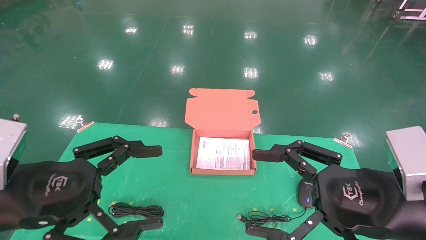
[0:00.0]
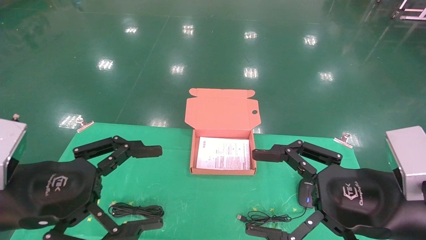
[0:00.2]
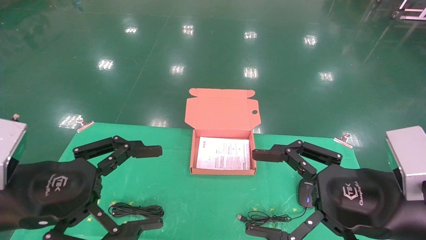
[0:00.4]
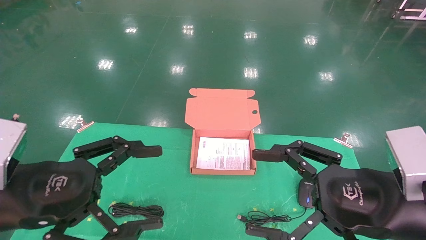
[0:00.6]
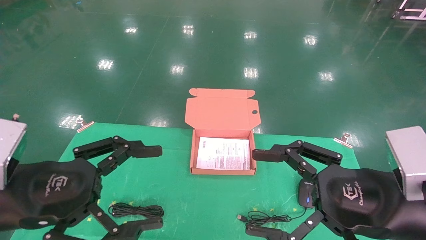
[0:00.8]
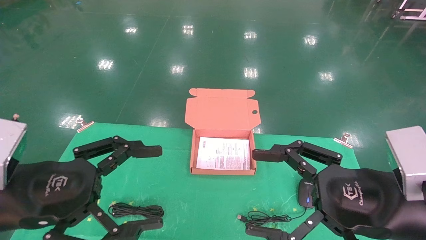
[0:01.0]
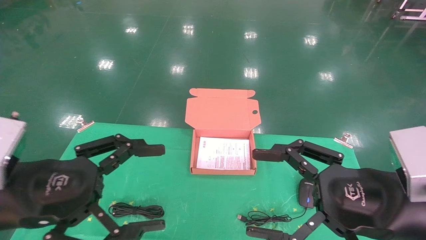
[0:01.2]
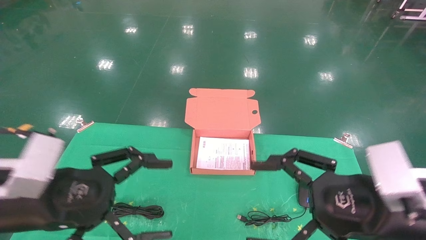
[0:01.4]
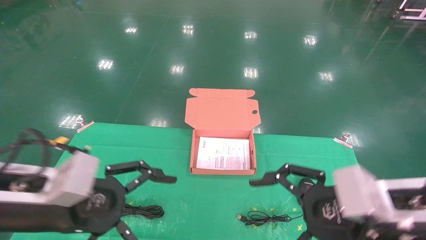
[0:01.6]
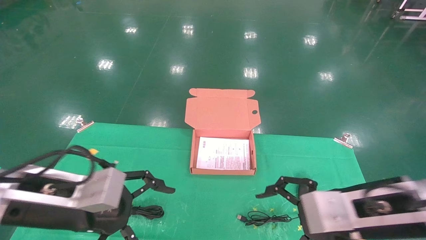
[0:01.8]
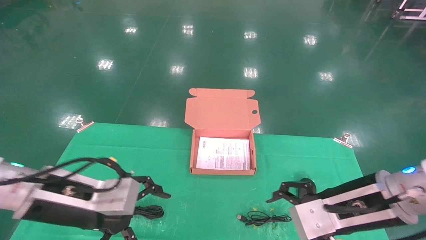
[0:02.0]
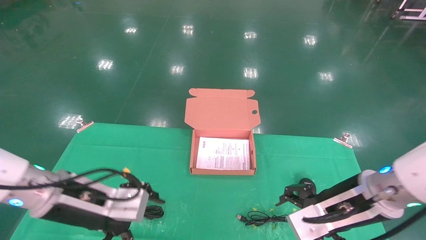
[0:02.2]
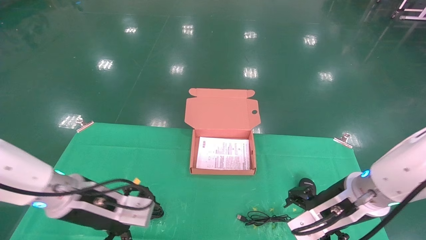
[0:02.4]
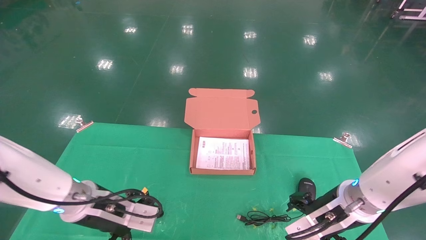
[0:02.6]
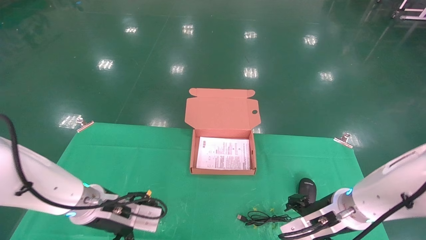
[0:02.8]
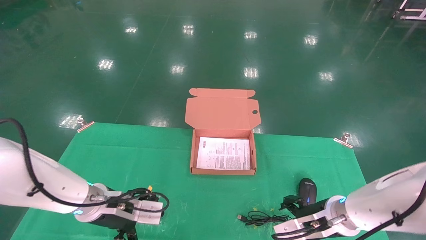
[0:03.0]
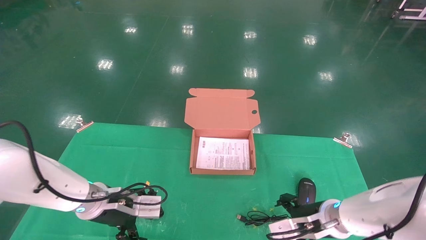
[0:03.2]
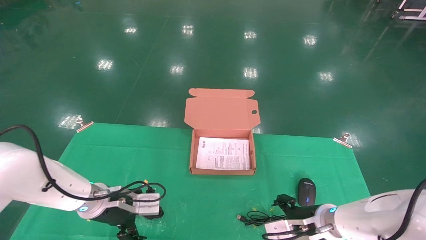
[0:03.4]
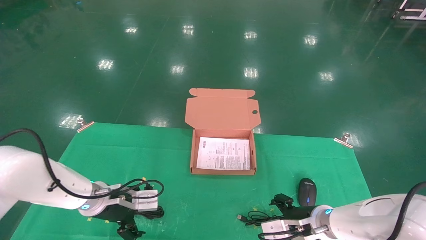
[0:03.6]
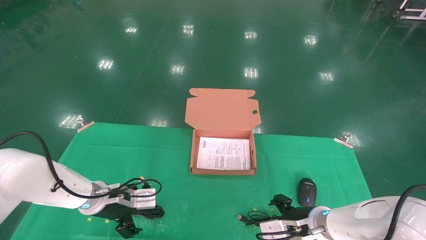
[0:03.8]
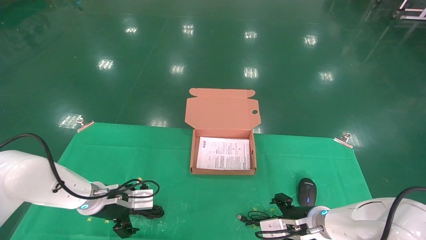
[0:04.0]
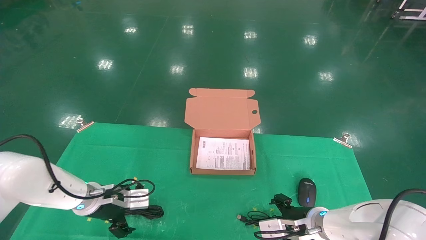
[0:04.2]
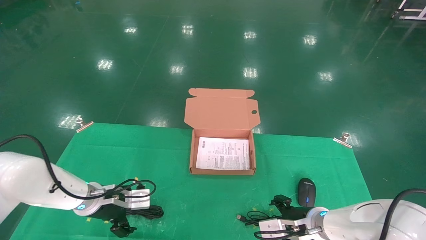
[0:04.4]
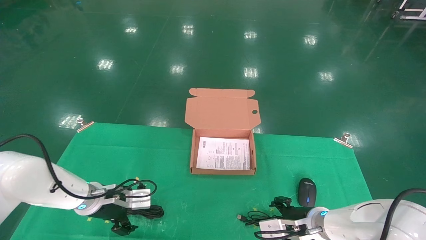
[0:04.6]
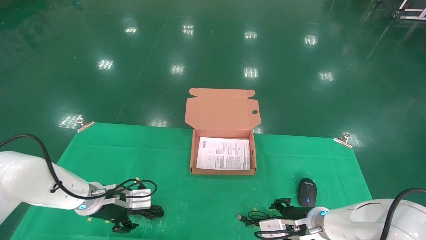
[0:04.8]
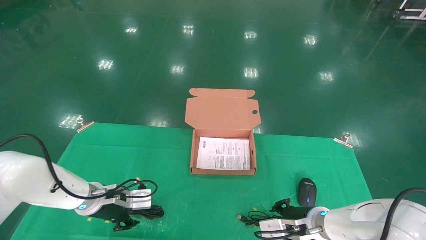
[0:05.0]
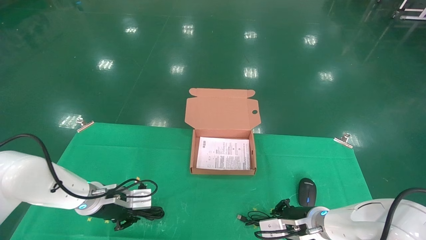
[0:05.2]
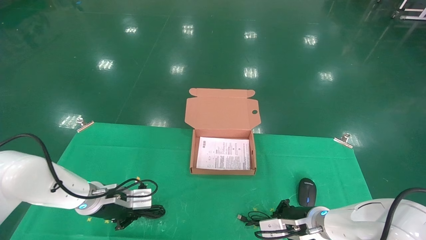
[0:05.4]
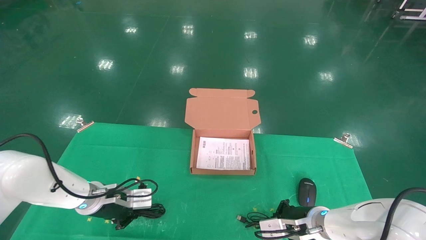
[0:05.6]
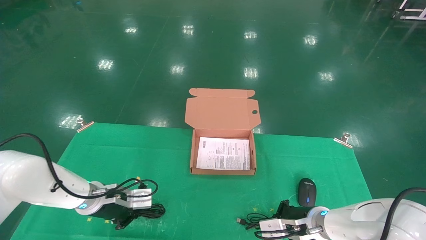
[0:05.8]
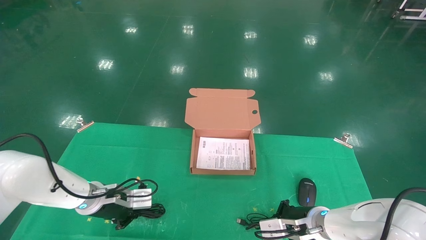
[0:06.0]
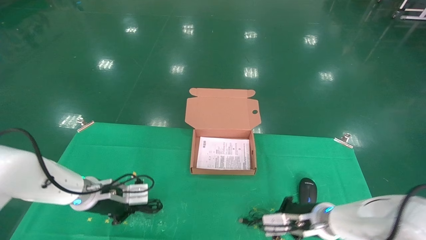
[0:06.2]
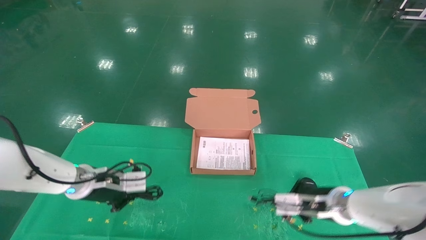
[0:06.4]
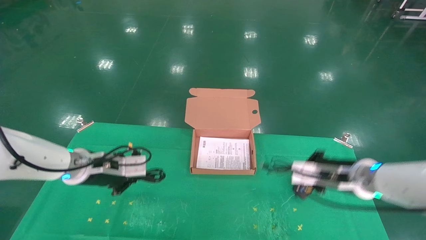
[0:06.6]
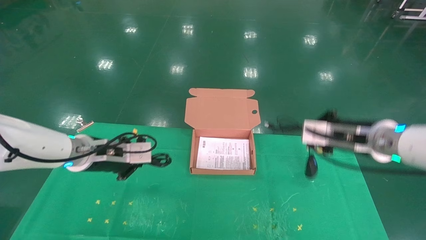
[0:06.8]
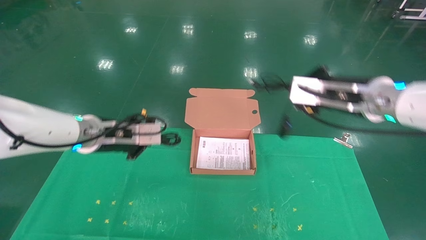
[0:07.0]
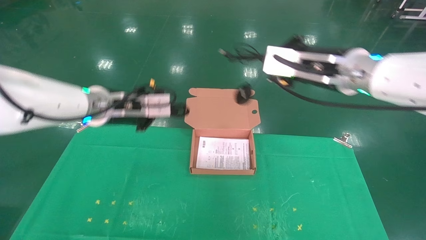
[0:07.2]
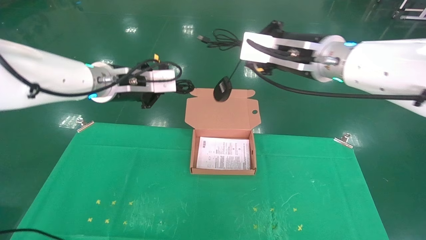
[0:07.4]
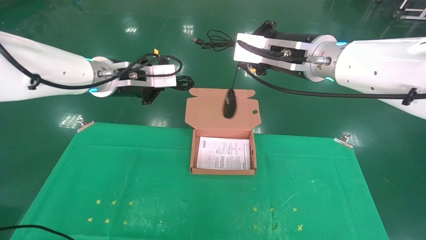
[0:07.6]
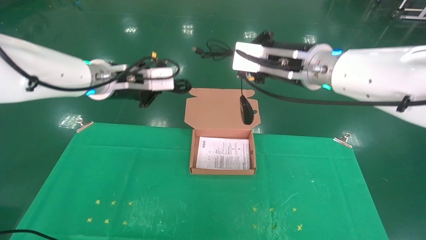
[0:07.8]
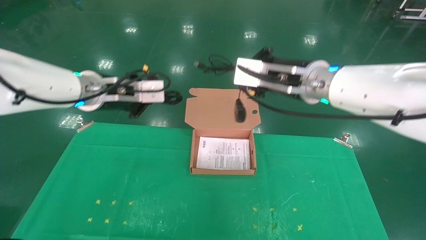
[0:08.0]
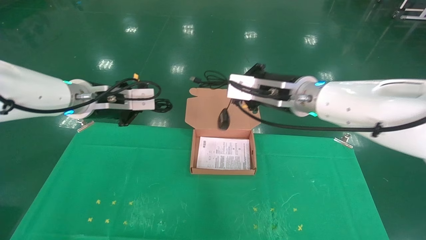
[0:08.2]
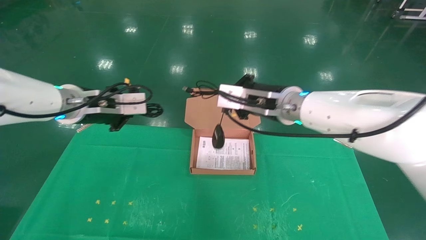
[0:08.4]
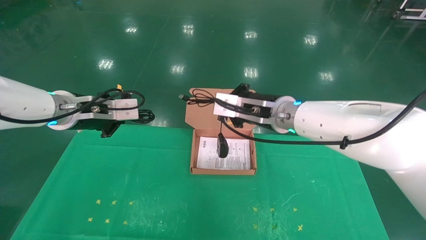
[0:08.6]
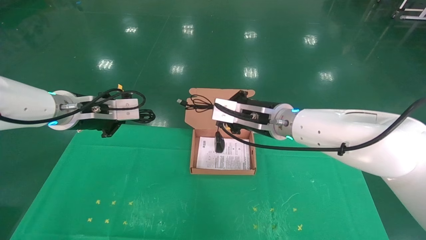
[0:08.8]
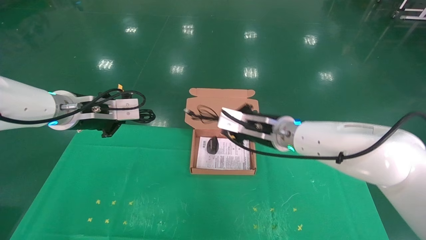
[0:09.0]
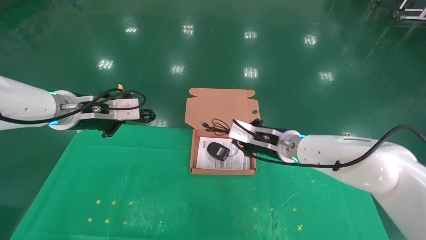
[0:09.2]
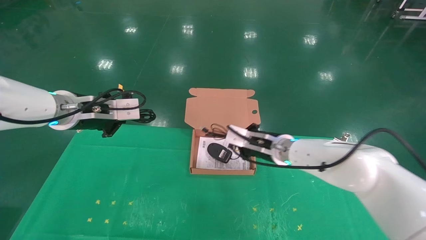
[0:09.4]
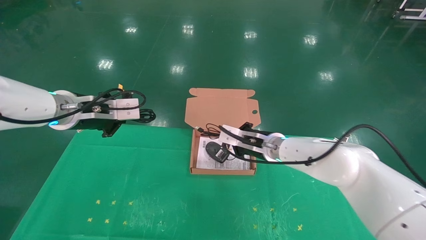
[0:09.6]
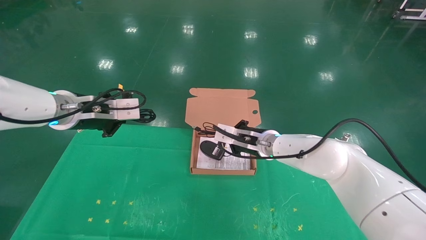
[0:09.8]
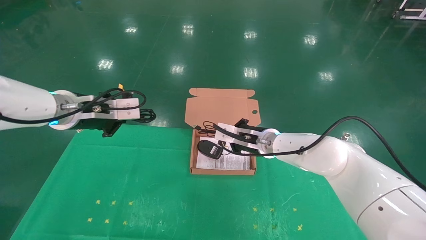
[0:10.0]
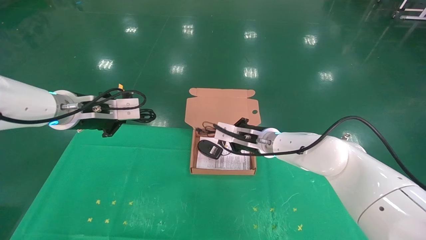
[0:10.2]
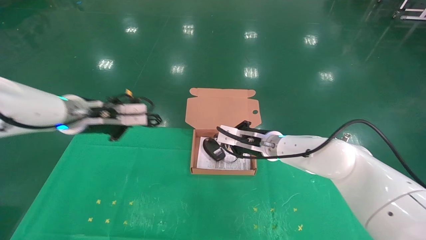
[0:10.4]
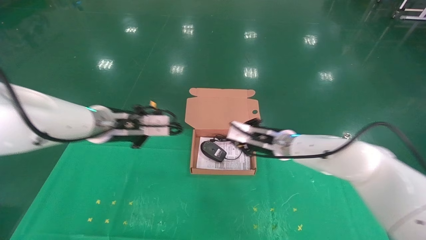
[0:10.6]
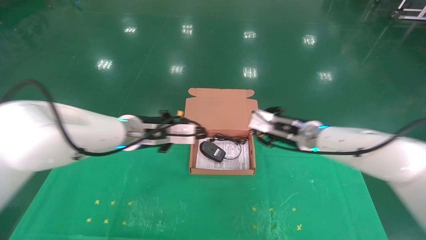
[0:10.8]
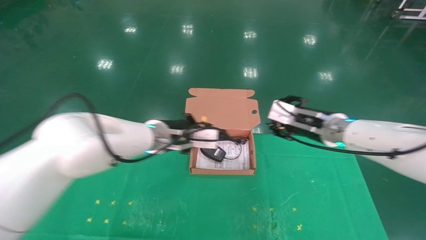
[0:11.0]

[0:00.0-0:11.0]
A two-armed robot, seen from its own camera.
Task of the whole recording: grasp data cable left put into box grasp mouse right put into box.
Step, 0:01.0 to 0:05.8: Grab and pick up both the mouse and power cord from the accessory packaging area at the same time.
0:01.6 to 0:03.2: The left gripper goes some 20 cm forward and downward. Meanwhile the right gripper heads downward and forward, covering roughly 20 cm.
0:03.2 to 0:04.8: The left gripper shifts by about 5 cm.
0:04.8 to 0:06.2: The left gripper closes up. Meanwhile the right gripper closes.
0:06.2 to 0:07.8: Both grippers travel together upward, some 25 cm.
0:07.8 to 0:09.4: The right gripper moves downward and forward, roughly 20 cm. Meanwhile the left gripper shifts some 5 cm to the left.
0:09.4 to 0:11.0: The right gripper heads to the right and upward, covering some 10 cm, and opens. Meanwhile the left gripper is displaced to the right and downward by some 20 cm.

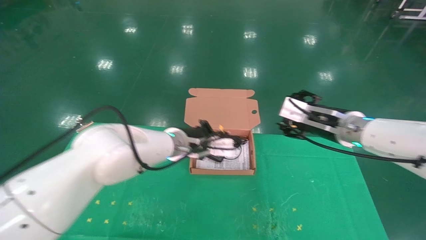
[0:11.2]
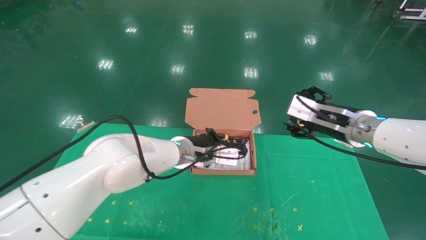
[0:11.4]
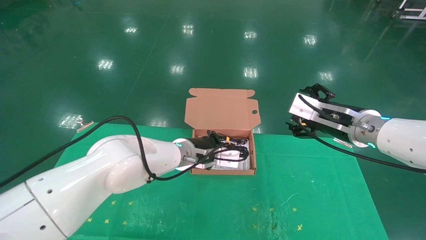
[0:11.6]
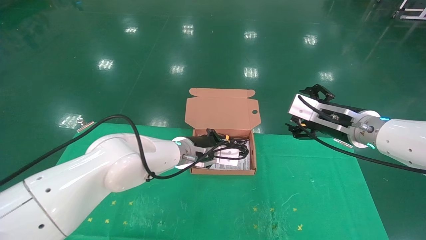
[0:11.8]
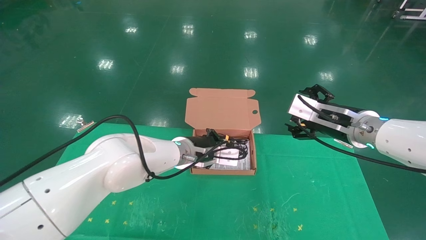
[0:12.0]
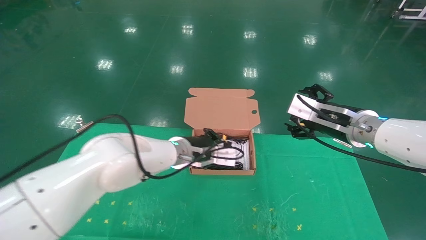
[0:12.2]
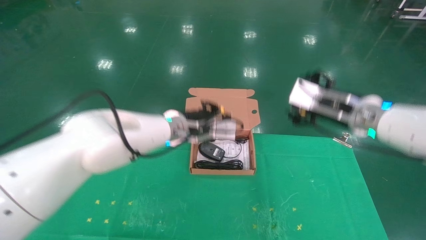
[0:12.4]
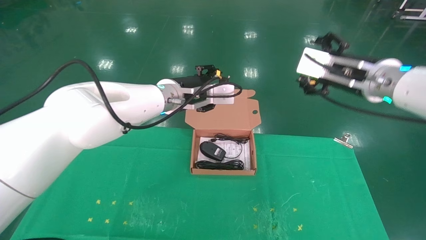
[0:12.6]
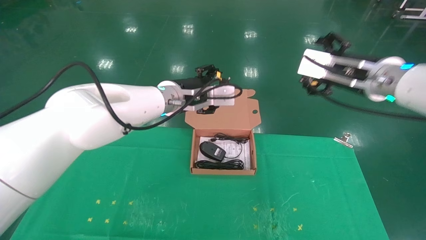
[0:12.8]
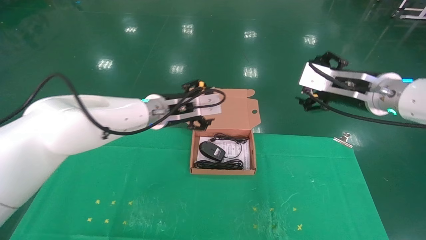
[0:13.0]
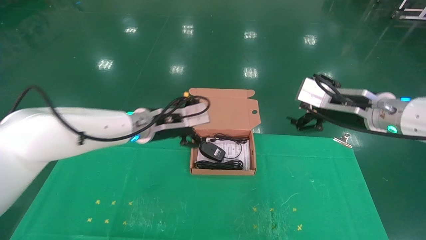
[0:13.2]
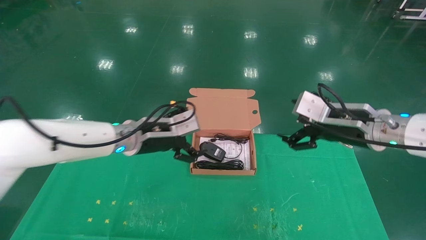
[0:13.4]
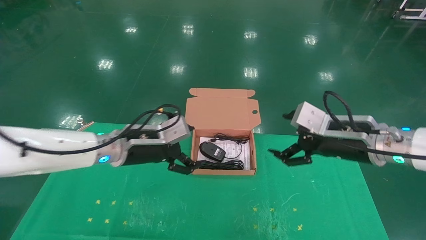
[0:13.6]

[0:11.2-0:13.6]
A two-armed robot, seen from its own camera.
Task of the whole recording: grasp data cable left put into box grasp mouse right put into box.
0:11.2 to 0:12.4: The grippers both shift upward by some 5 cm.
0:12.4 to 0:13.6: The right gripper is displaced downward by roughly 5 cm. Meanwhile the left gripper goes approximately 10 cm to the left, and opens its fingers.

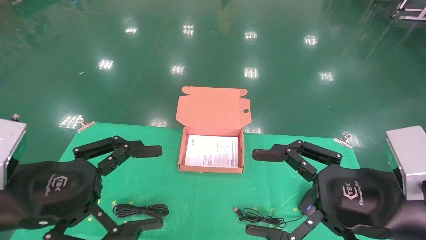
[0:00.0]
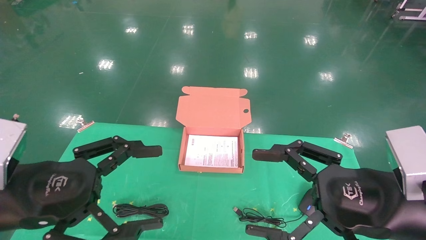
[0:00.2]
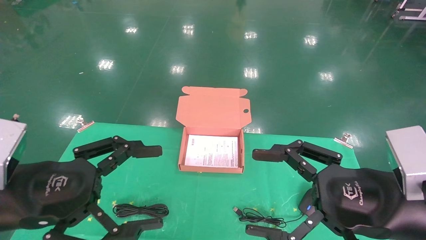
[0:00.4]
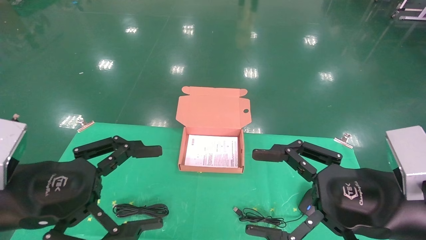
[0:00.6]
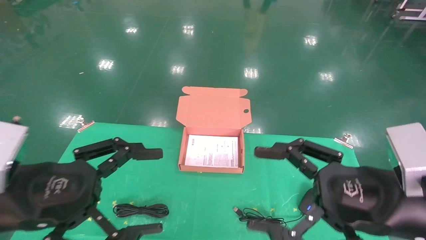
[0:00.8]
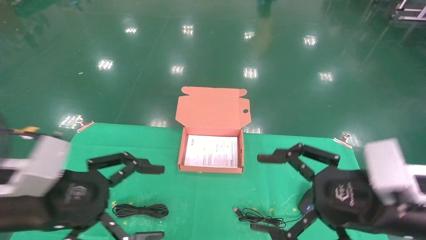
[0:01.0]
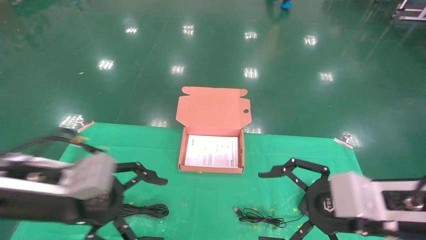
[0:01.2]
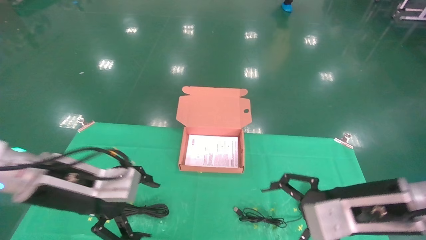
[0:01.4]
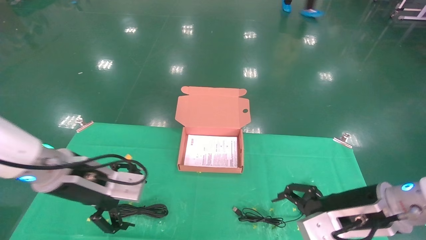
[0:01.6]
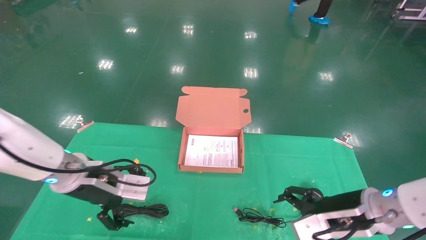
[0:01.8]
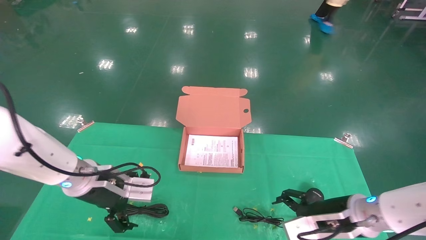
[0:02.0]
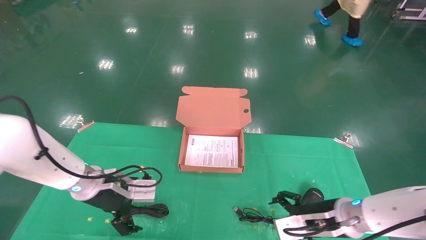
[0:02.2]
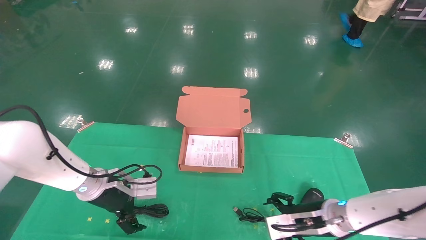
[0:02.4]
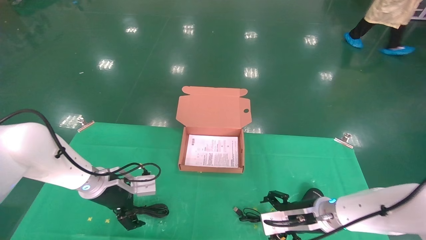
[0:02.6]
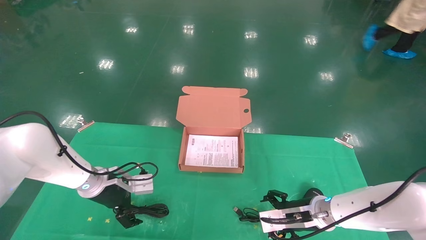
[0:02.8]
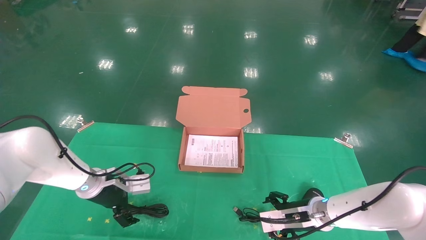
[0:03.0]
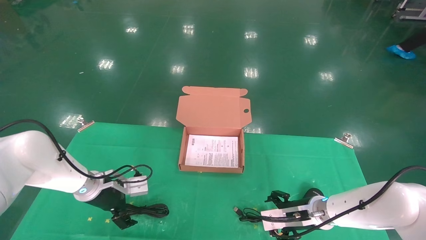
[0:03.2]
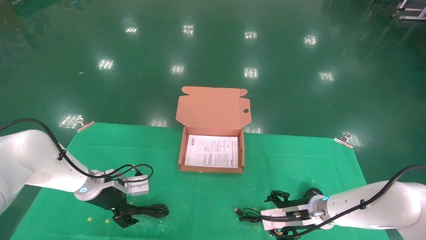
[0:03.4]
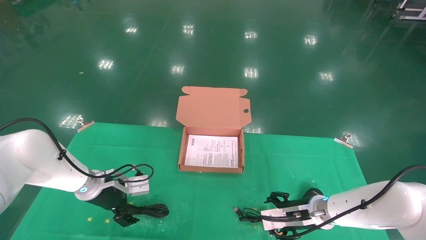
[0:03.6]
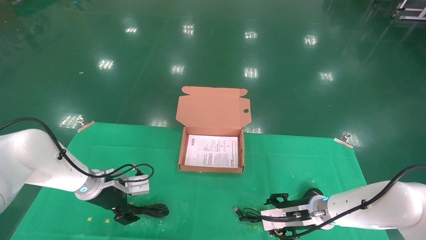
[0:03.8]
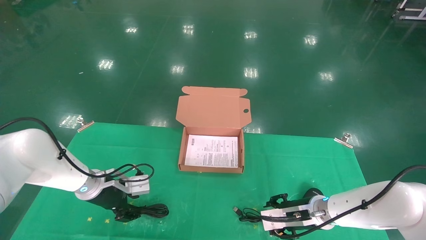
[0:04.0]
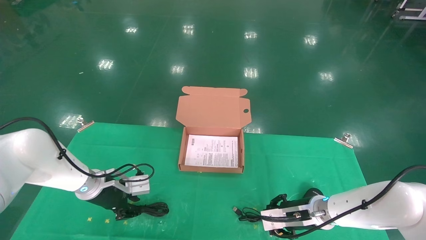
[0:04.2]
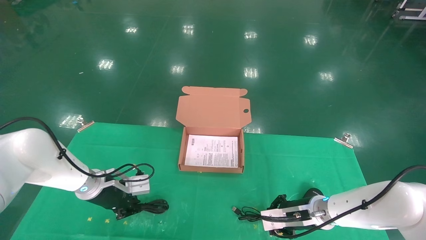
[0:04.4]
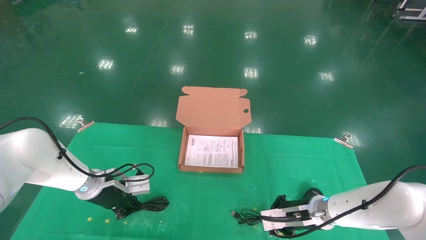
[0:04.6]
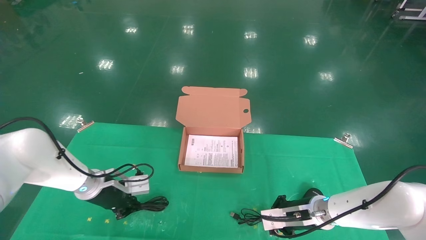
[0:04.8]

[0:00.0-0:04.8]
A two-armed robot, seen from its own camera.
Task of the whole recording: grasp data cable left put into box grasp mouse right put into box.
0:00.0 to 0:01.6: The left gripper heads forward, covering some 10 cm. Meanwhile the right gripper shifts roughly 10 cm forward and downward.
0:01.6 to 0:03.2: Both grippers travel together forward and downward, roughly 15 cm.
0:03.2 to 0:04.8: The left gripper closes its fingers. Meanwhile the right gripper closes its fingers.
